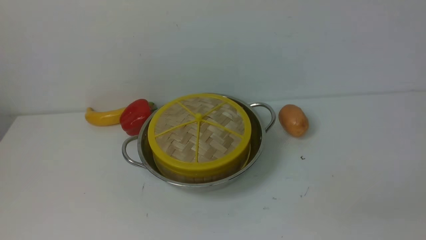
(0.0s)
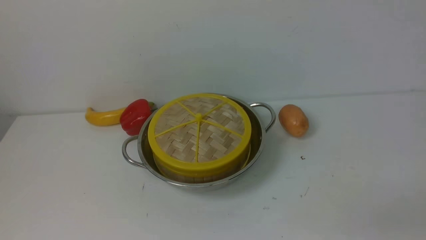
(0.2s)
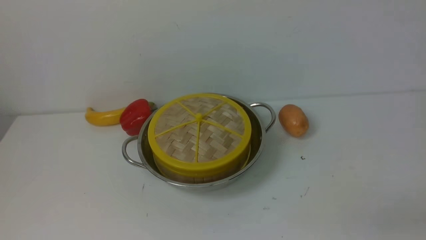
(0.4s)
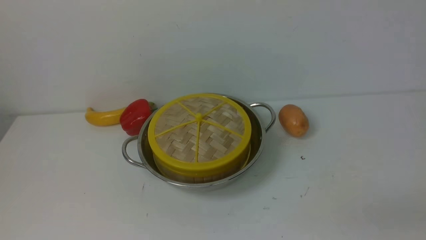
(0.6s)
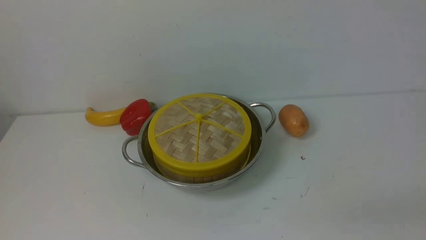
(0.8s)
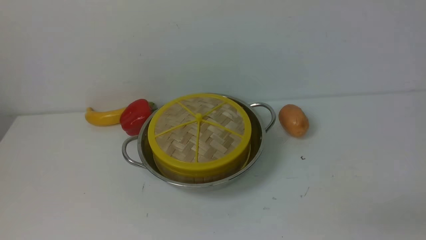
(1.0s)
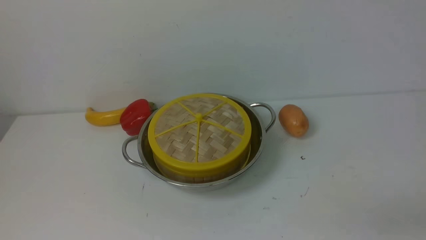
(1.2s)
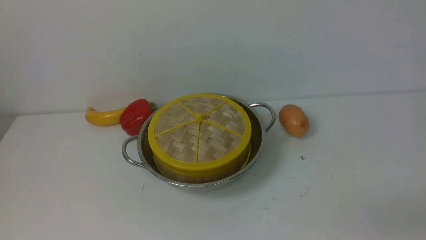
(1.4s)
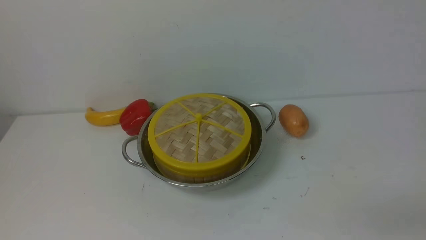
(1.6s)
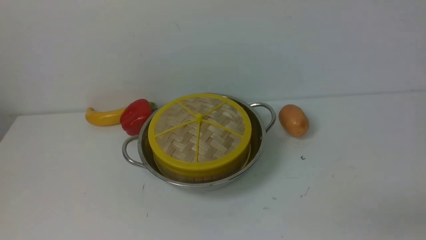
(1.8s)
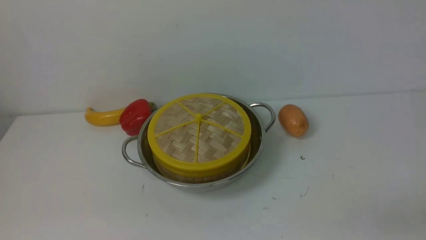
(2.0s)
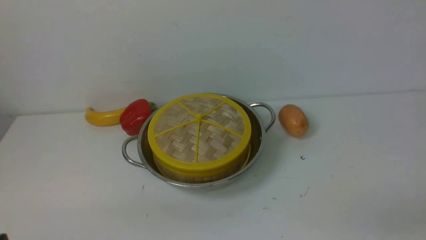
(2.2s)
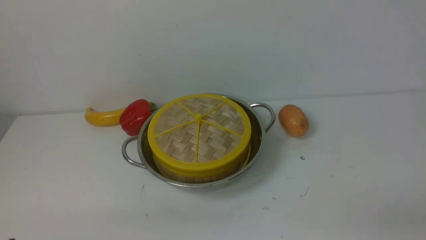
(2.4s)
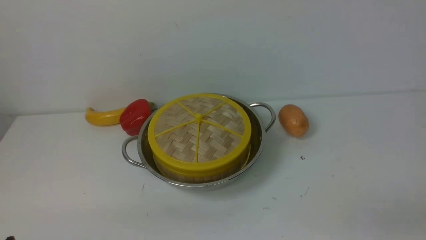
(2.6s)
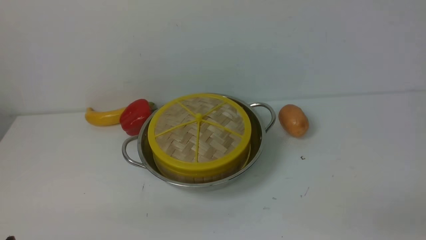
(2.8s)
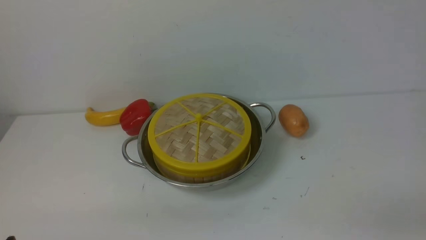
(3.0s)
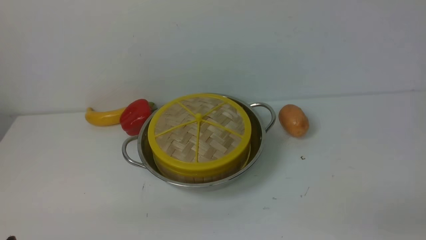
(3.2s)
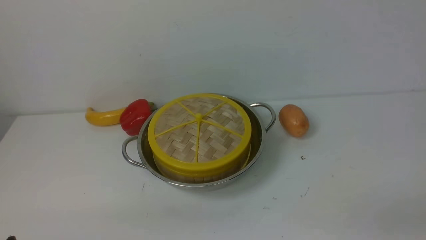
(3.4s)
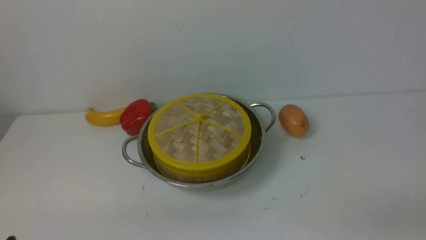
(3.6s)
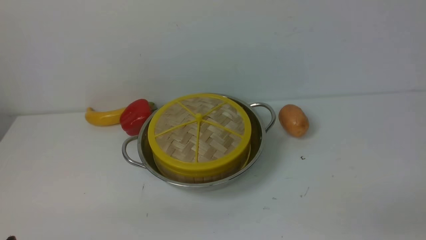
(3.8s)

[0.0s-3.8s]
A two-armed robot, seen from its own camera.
Task of the whole recording: place the steamer in the pot on the white table, and put the lid on the steamer.
2.6s to 3.8s: Both grippers stay put.
